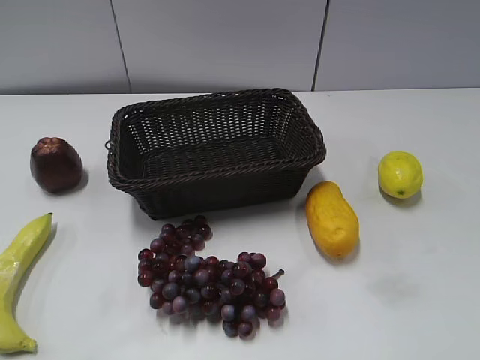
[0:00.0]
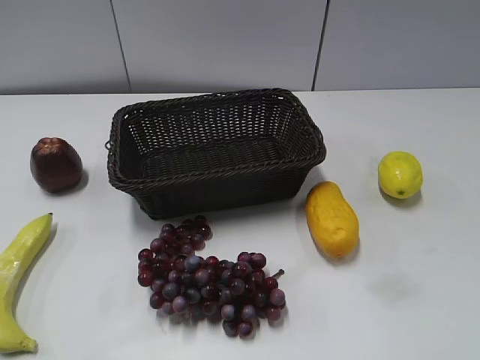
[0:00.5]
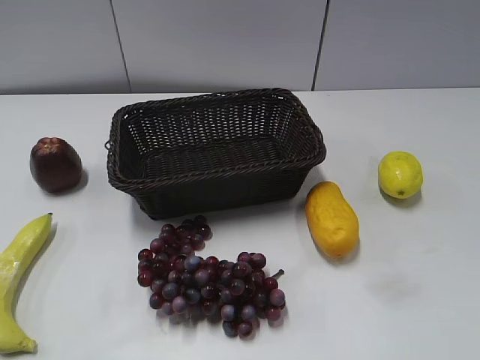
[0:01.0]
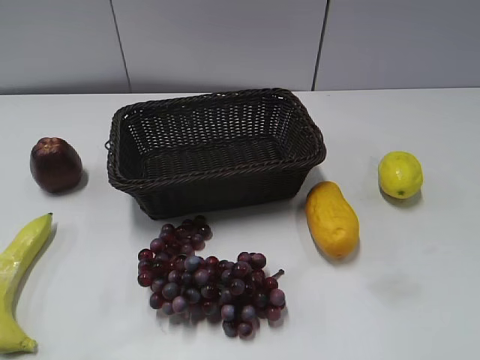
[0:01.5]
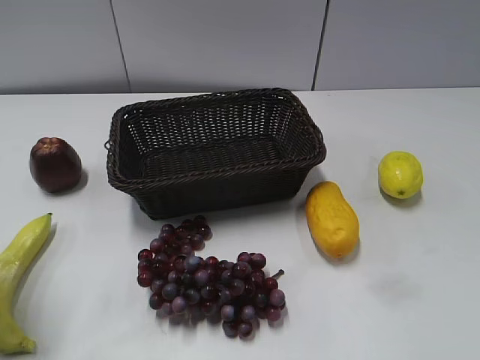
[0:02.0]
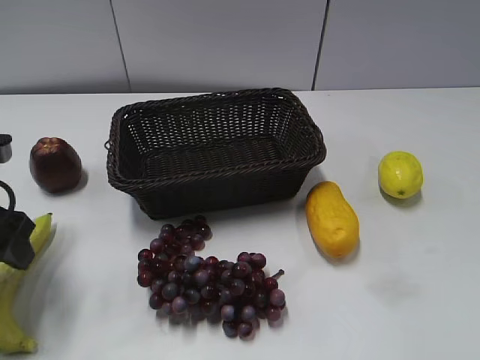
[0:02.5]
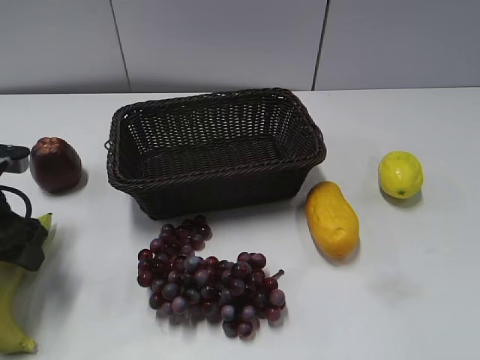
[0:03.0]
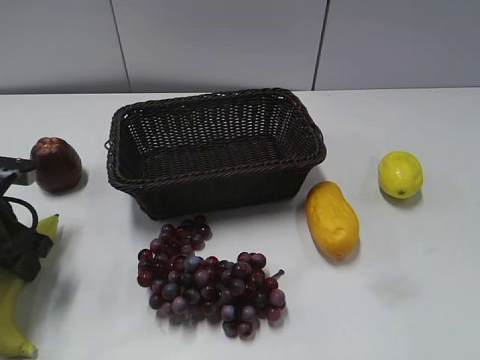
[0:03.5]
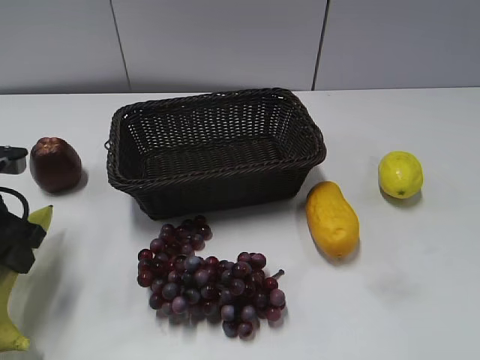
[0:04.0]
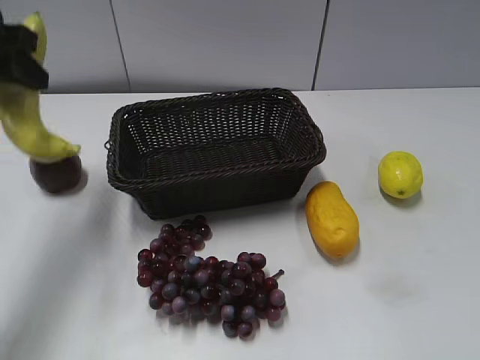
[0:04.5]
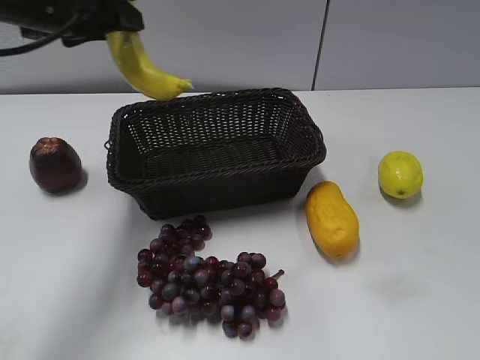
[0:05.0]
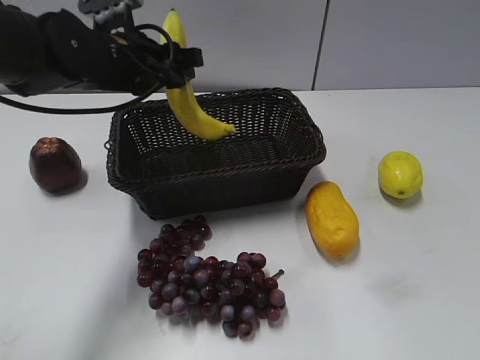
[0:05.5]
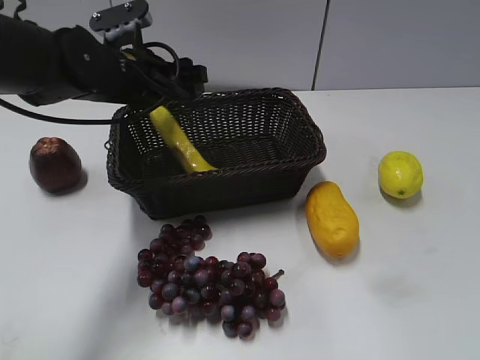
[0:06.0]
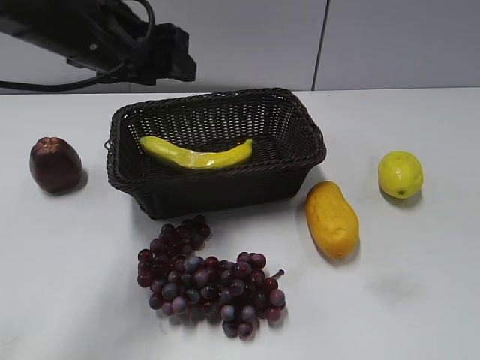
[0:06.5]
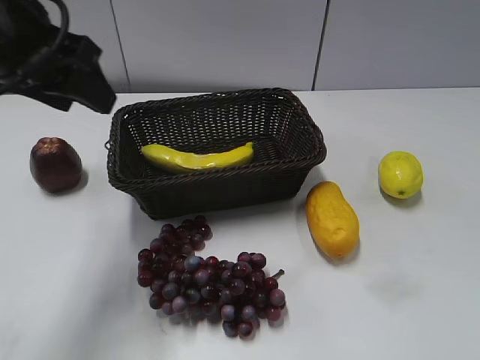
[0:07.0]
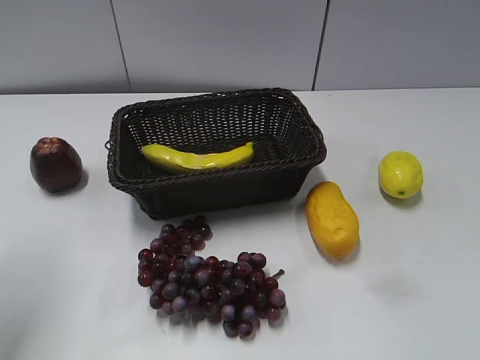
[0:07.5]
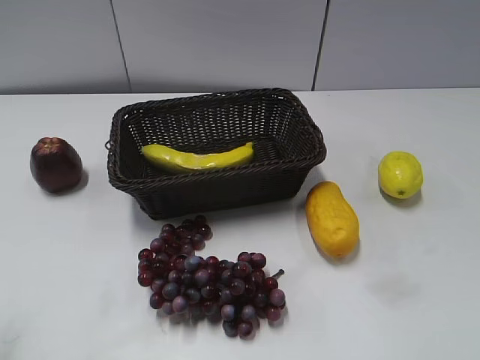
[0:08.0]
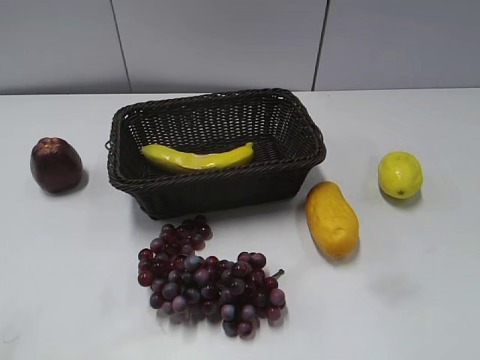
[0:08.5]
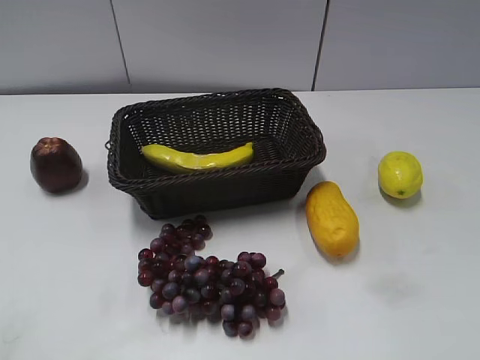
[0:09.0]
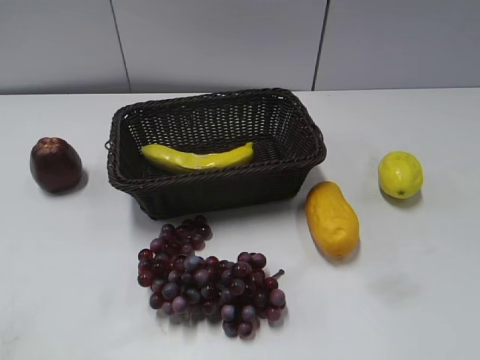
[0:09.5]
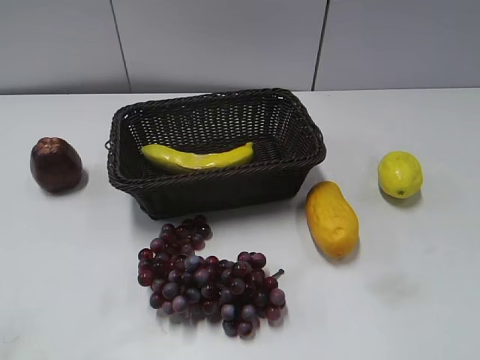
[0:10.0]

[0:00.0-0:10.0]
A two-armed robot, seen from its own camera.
Step, 0:02.5 to 0:03.0: Grasp the banana with left gripper.
Step, 0:03.5 to 0:05.5: Place the banana in the basket with left gripper.
0:02.0 to 0:04.0: The left gripper is displaced downward and forward by approximately 10 cm, and closes.
0:04.0 to 0:06.0: The left gripper moves to the right and forward, some 20 cm, and opens.
0:06.0 to 0:08.0: The left gripper heads backward, to the left and upward, covering approximately 35 cm.

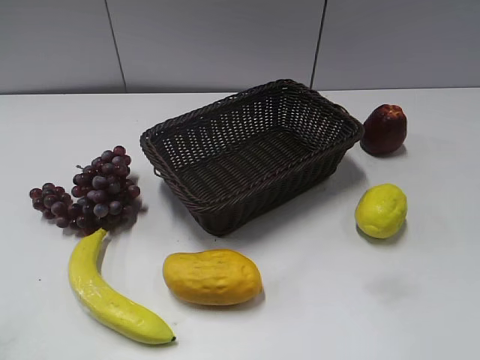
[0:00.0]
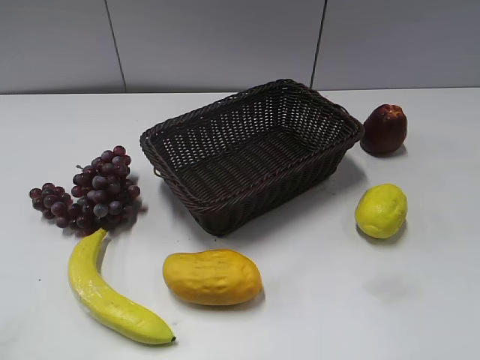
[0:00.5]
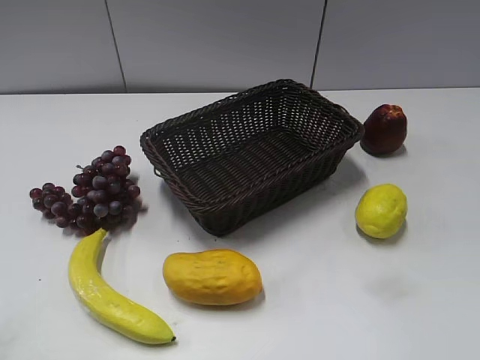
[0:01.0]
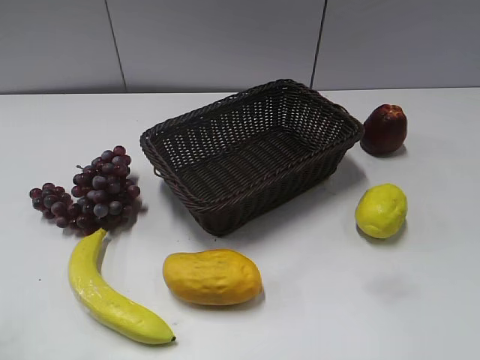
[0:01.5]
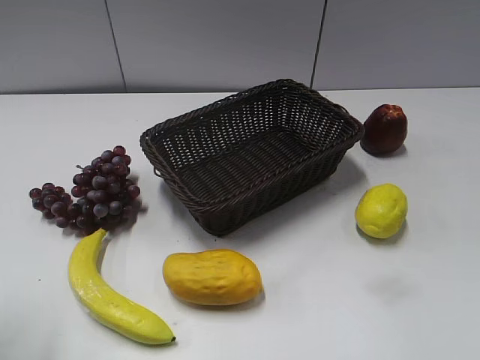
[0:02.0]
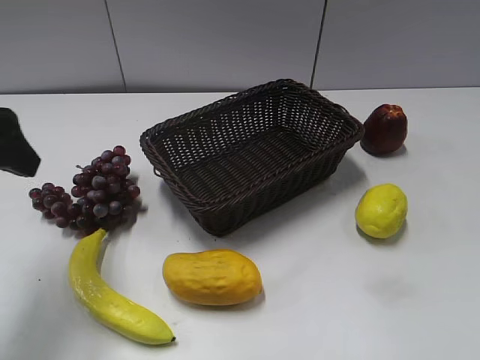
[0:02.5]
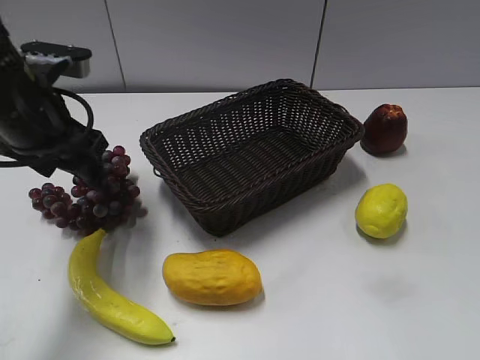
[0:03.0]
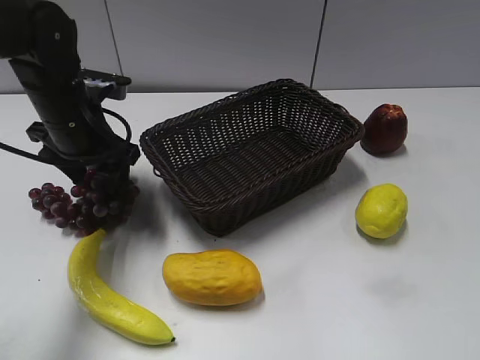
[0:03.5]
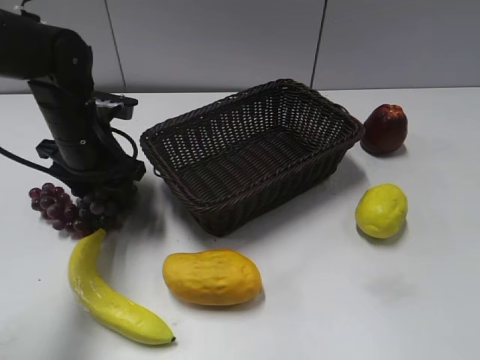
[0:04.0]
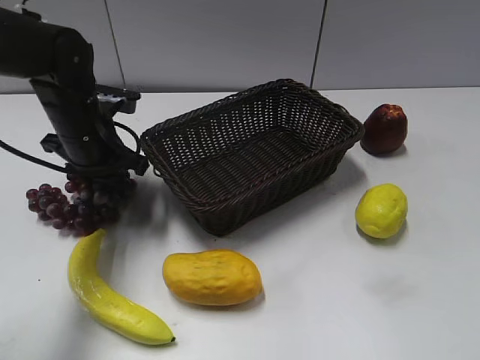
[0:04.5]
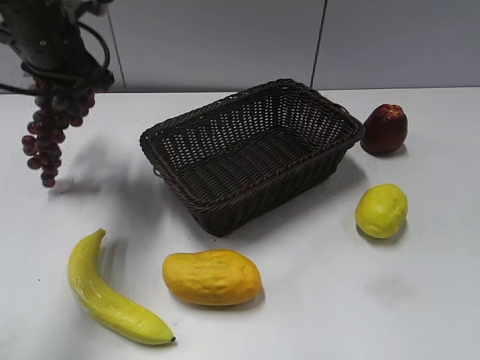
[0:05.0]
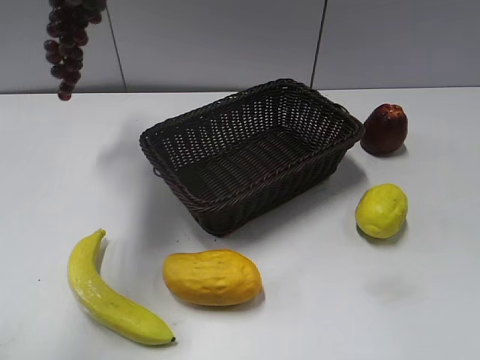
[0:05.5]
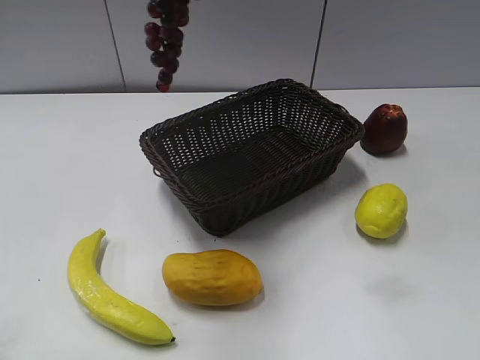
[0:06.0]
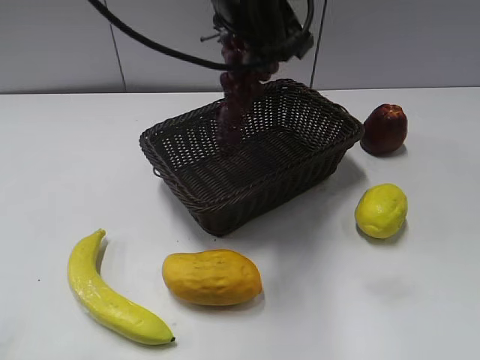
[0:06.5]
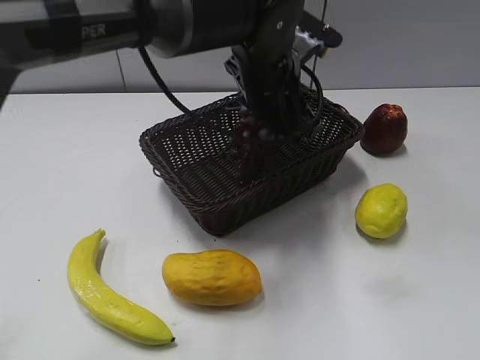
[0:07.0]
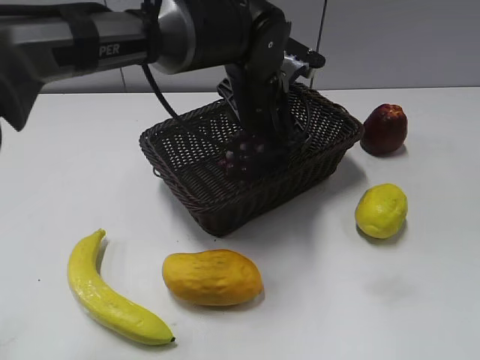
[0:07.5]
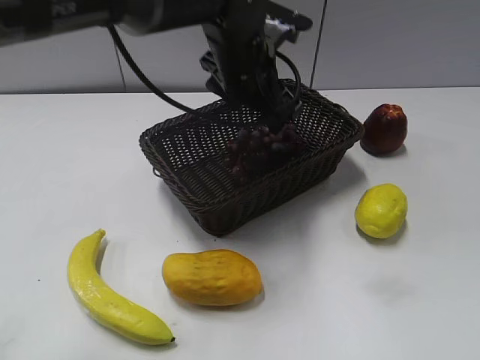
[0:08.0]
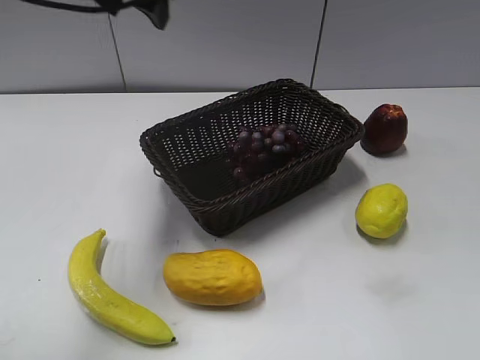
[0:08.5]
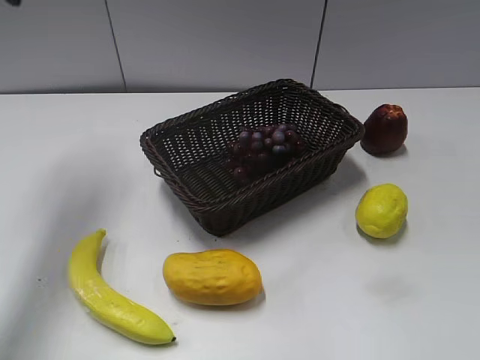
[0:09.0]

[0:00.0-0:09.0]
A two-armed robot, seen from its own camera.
Step, 0:02.5 to 0:04.0: Grasp the grape with left gripper.
Step, 0:04.5 to 0:07.5: Place the grape in the basket with left gripper.
0:02.0 to 0:04.5: The left gripper travels forward, downward and to the right by roughly 30 cm, and closes.
0:04.5 to 0:07.0: The left gripper moves to the right, approximately 20 cm, and travels upward and back again, some 25 cm each way.
0:07.0 to 0:09.0: The left gripper shifts approximately 35 cm to the left and upward, and opens its fingers.

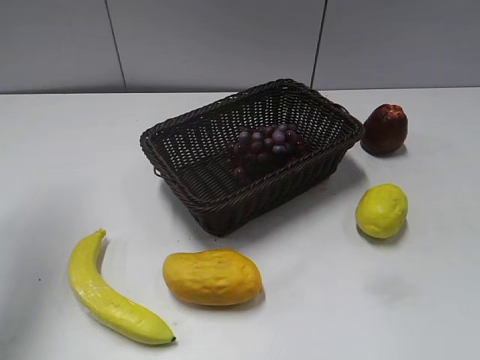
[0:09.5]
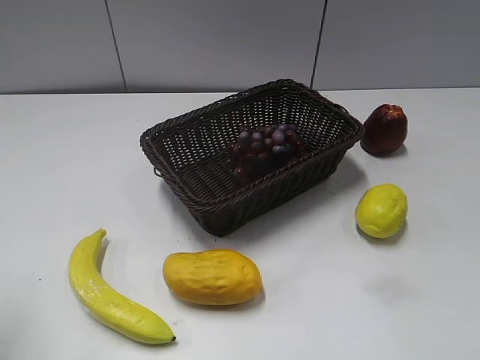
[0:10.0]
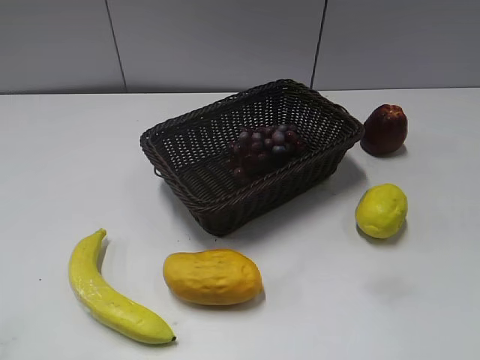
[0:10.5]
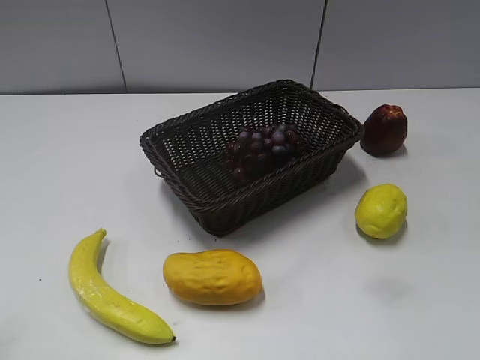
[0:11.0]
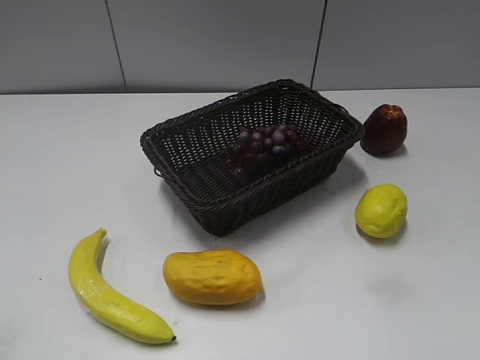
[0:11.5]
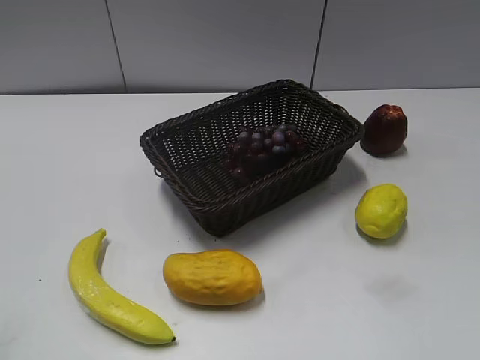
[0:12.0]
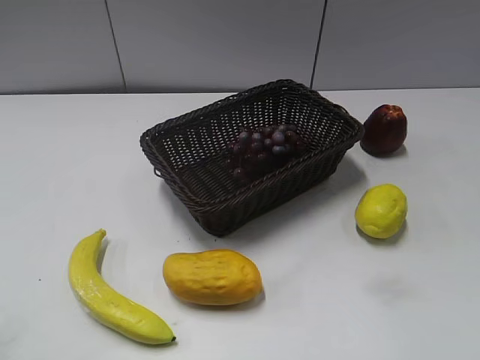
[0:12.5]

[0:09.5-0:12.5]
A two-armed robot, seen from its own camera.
0:09.5 to 0:11.0: The left gripper goes roughly 25 cm backward.
0:11.0 to 0:12.5: The two grippers keep their place.

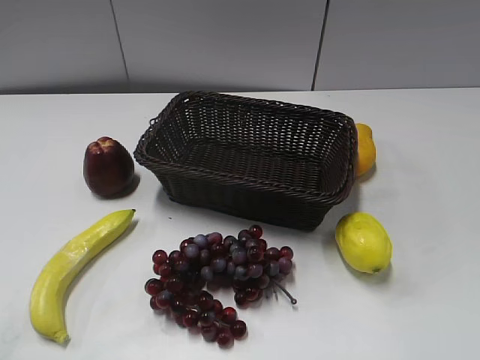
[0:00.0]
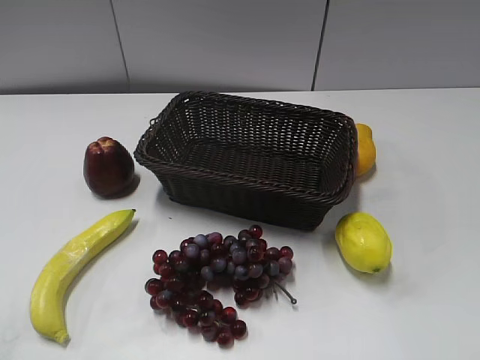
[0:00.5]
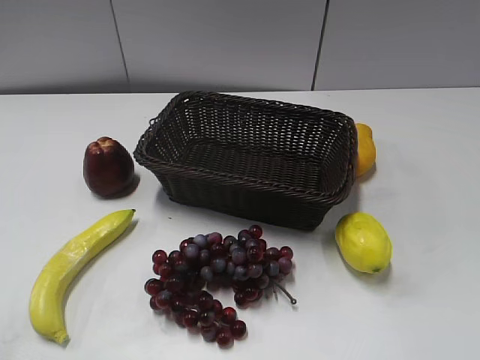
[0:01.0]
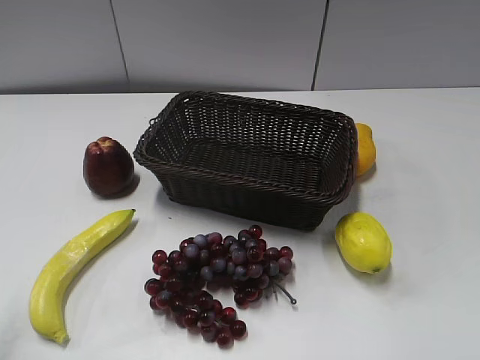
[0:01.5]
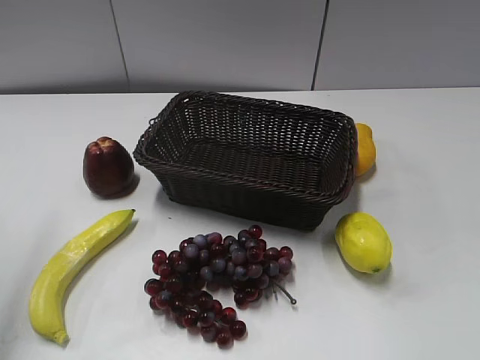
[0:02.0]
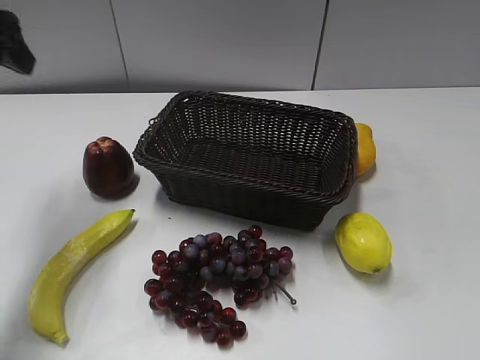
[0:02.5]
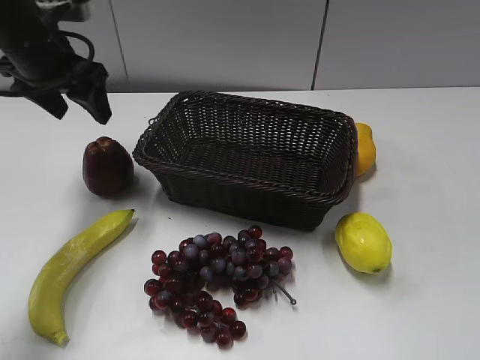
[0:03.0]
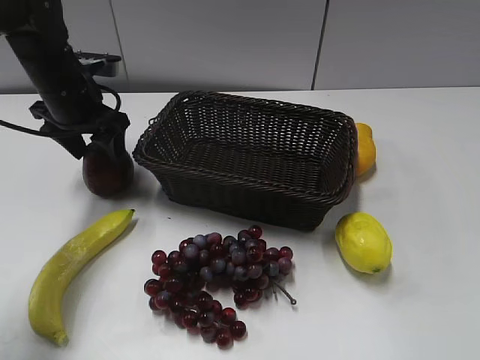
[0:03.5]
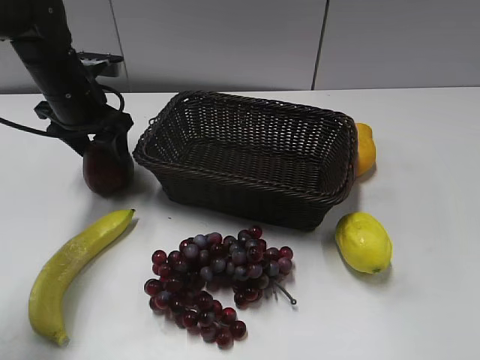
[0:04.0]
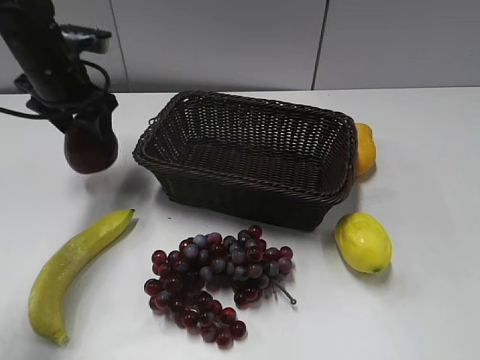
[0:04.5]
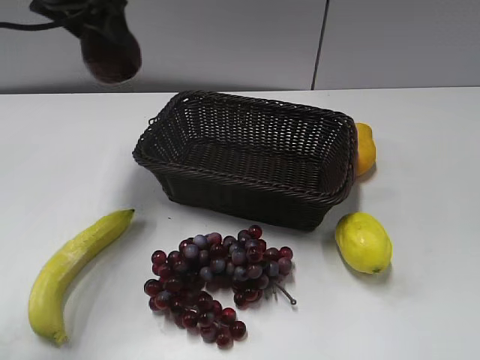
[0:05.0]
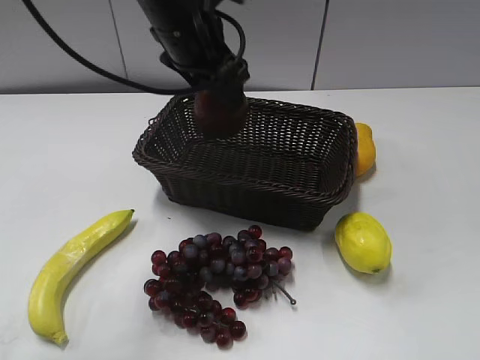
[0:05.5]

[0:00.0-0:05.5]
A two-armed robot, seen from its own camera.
Step, 0:02.5 to 0:04.0: Grasp the apple with left gripper.
0:02.0 to 0:03.5: The left gripper travels forward, downward and to the right by about 30 cm, and opens its fingers.
0:03.5 to 0:05.5: The left gripper is displaced to the right and upward by roughly 20 cm, and closes.
